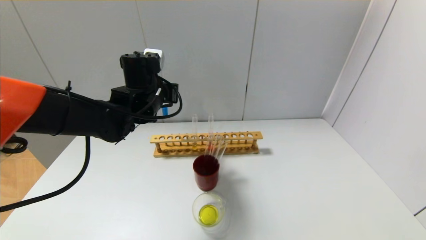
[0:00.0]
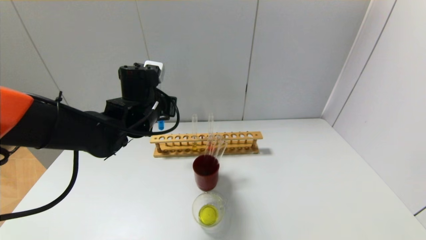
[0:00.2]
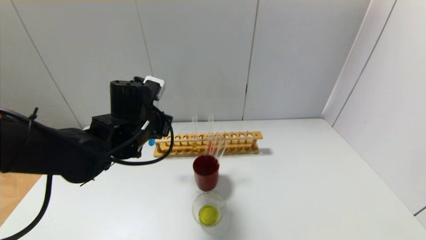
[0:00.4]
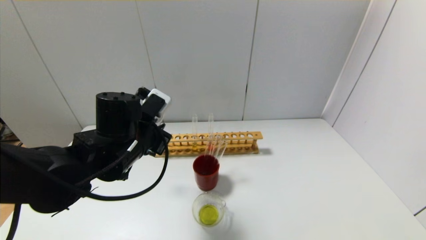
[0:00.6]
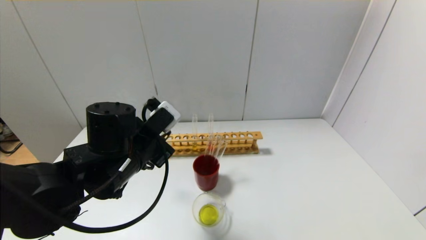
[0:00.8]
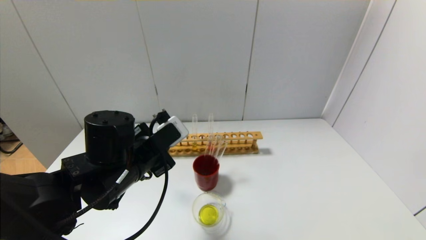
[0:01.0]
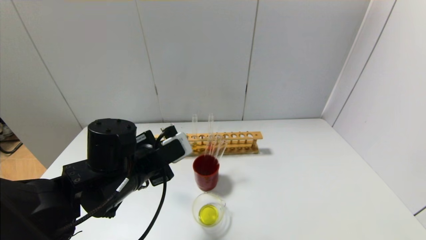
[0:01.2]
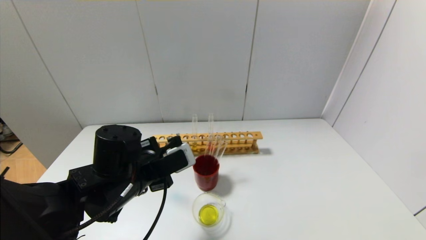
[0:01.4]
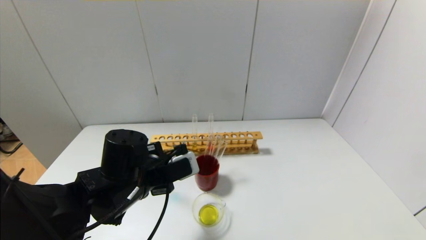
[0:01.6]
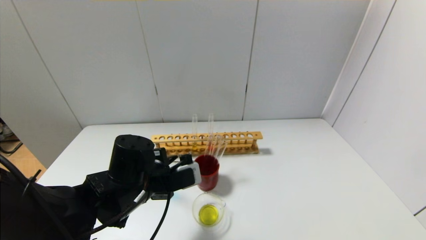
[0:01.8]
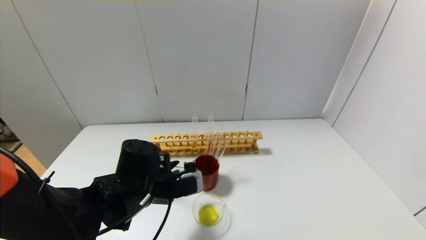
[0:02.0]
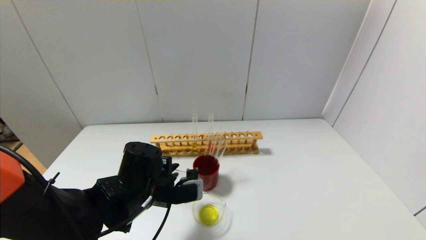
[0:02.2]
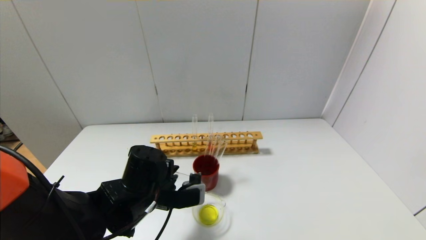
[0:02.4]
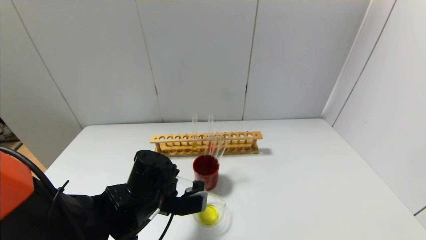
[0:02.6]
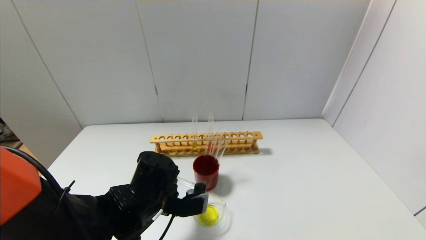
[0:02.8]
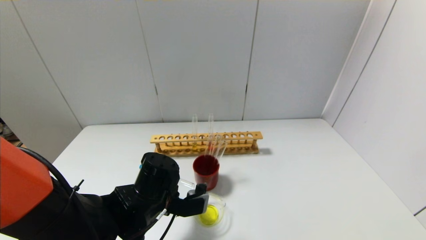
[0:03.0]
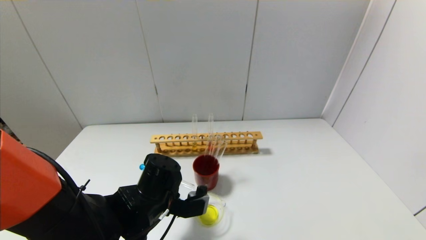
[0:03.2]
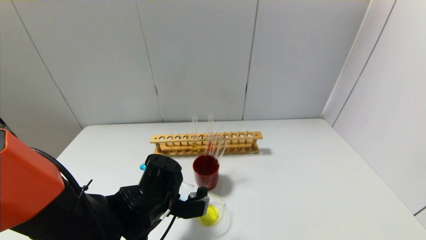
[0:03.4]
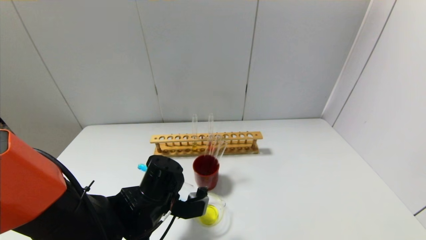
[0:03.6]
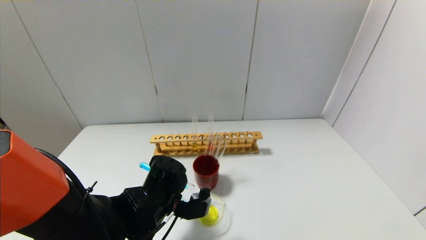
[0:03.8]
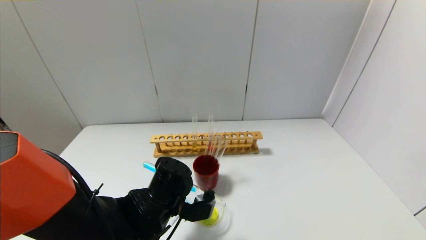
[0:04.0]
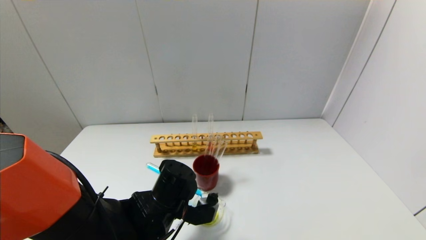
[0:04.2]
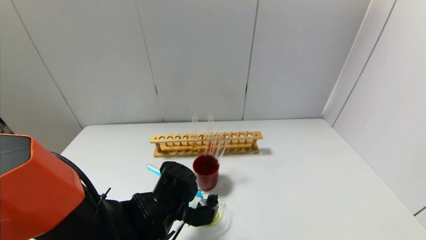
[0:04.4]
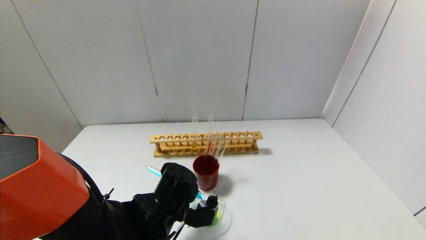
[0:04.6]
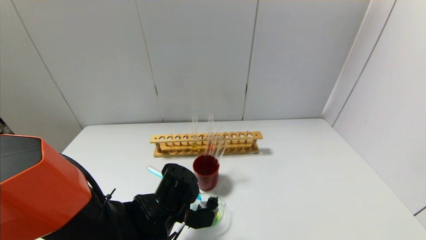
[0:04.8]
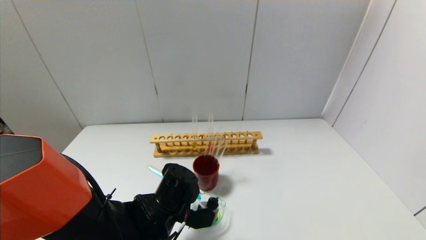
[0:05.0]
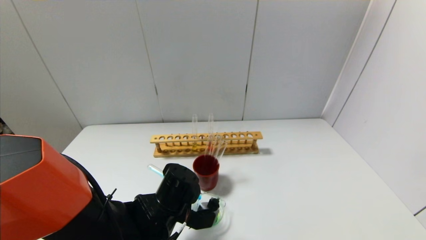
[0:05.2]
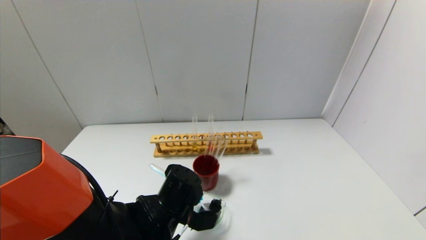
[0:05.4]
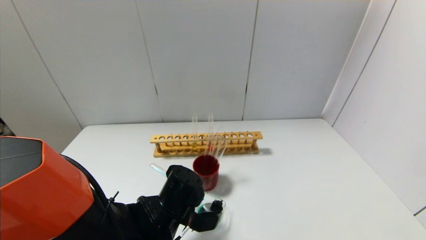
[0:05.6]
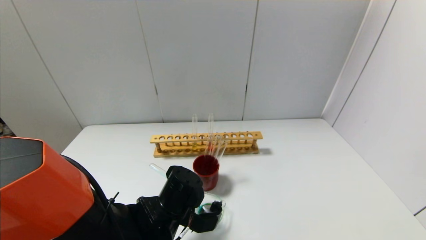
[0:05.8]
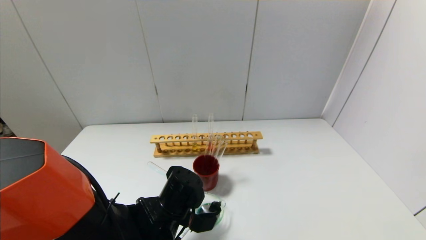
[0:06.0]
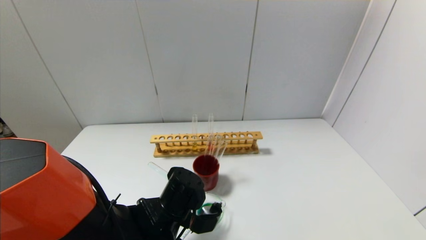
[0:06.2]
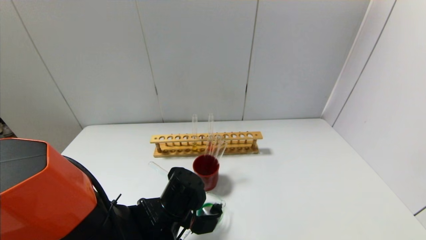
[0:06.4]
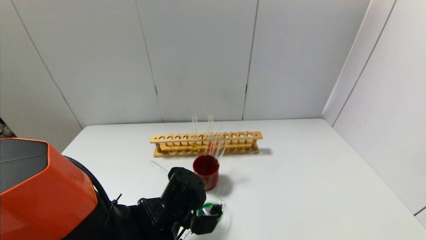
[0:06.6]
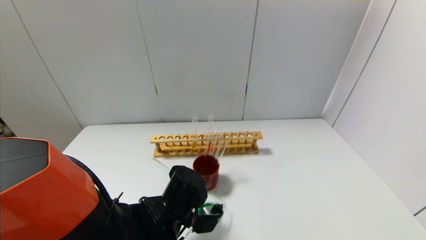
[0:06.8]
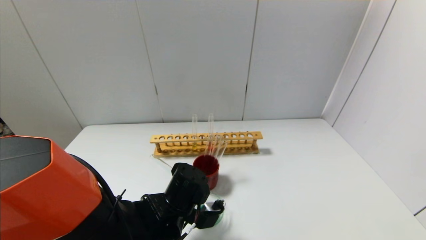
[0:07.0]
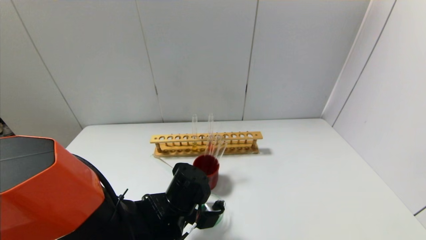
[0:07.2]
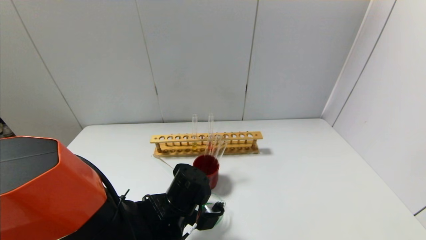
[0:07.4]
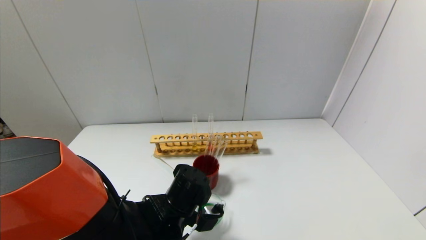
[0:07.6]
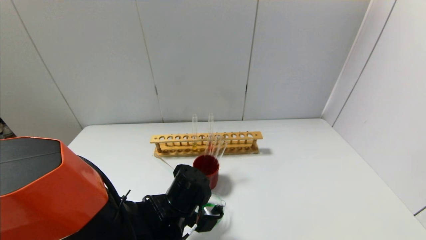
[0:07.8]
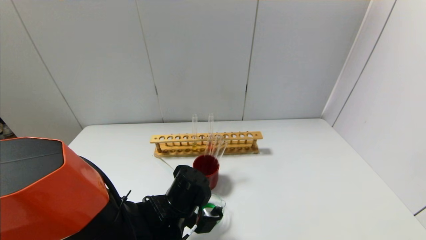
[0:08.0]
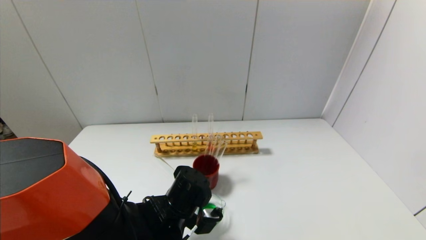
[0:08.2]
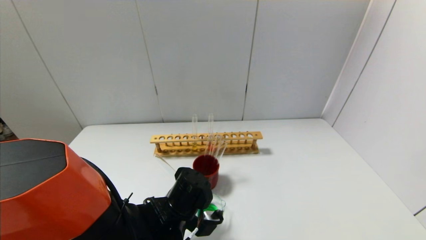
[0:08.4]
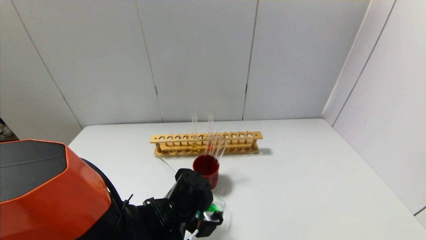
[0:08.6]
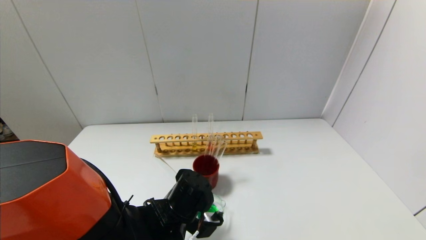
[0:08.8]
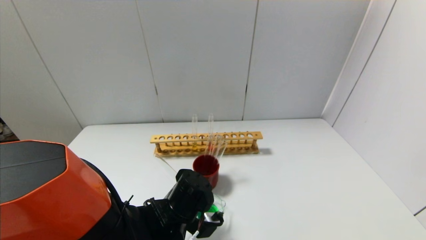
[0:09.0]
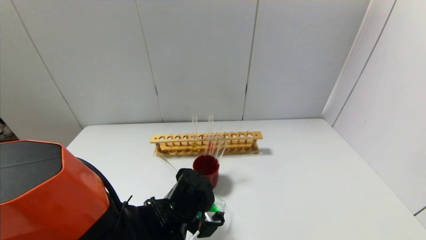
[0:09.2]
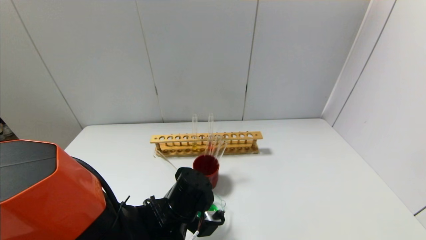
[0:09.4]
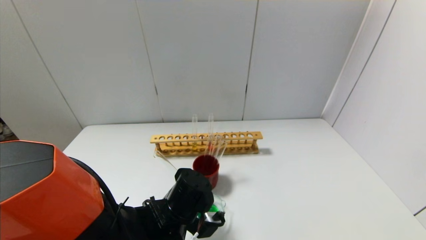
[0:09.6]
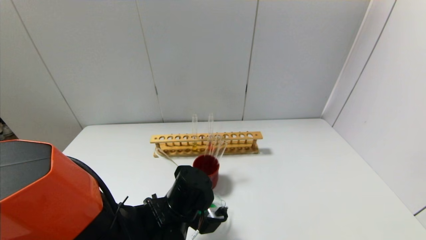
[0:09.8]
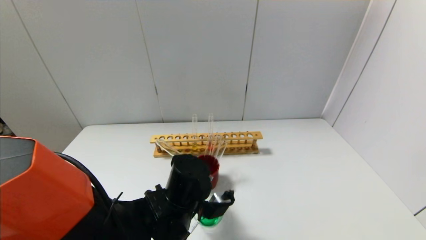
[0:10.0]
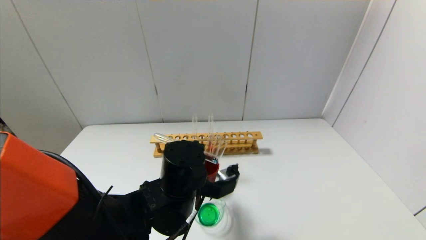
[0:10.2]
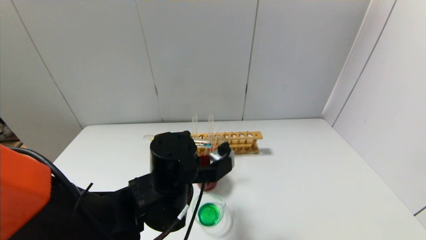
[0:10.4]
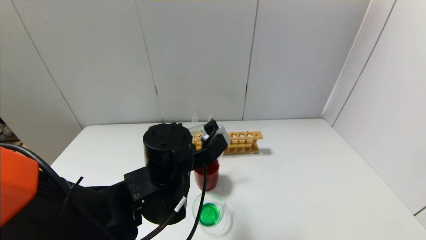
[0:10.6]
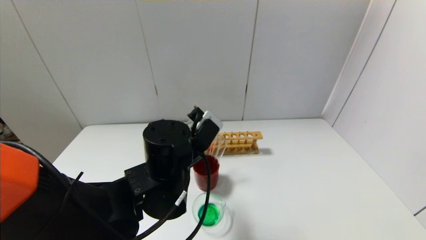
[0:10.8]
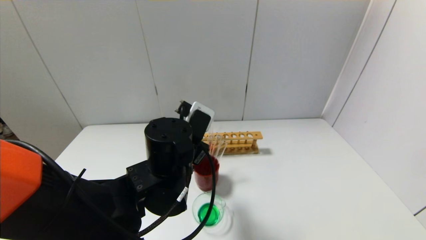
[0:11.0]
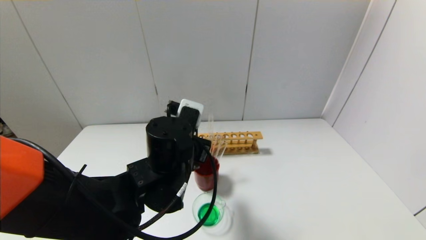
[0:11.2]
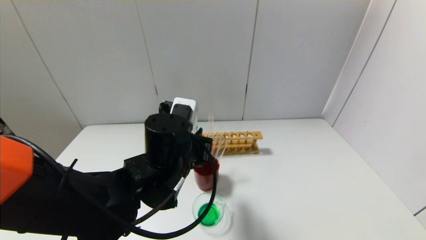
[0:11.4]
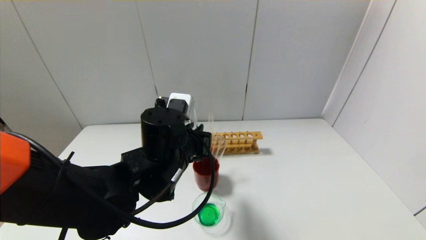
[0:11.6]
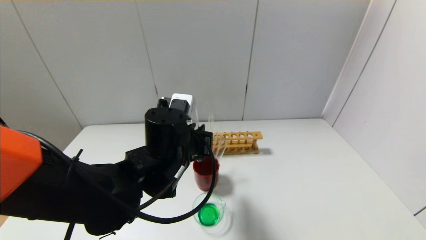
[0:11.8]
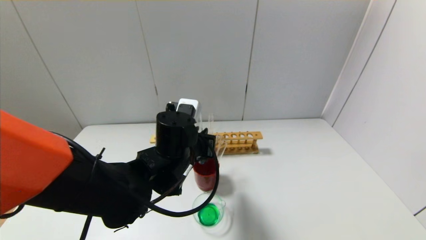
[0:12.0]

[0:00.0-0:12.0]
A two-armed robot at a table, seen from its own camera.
Step, 0:00.0 to 0:09.8: Pour the blue reagent into the graduated cylinder with the left gripper.
0:00.0 to 0:01.6: The left gripper heads backward and downward, covering about 15 cm.
0:01.6 to 0:03.0: The left gripper changes place by about 5 cm.
0:03.0 to 0:06.0: The grippers stay close to where they were, moving slightly.
0:06.0 to 0:09.0: The grippers stay close to where they were, moving slightly.
0:09.0 to 0:10.4: The left gripper heads upward, covering about 10 cm.

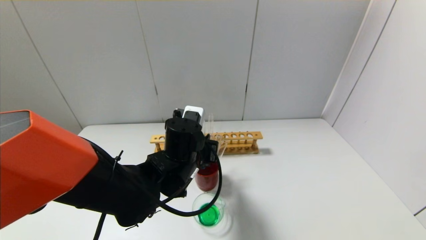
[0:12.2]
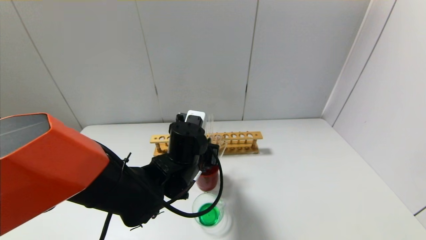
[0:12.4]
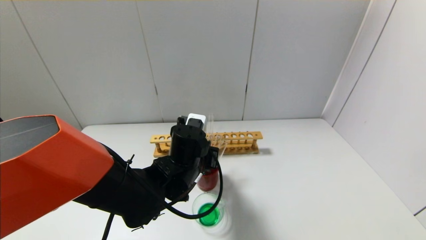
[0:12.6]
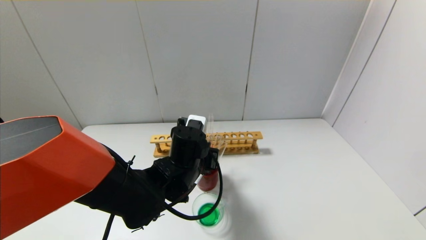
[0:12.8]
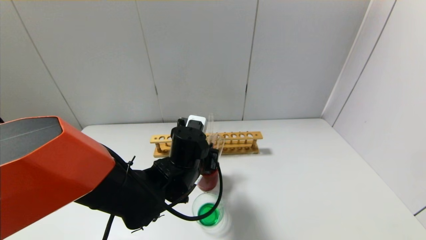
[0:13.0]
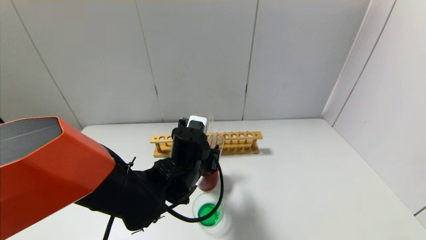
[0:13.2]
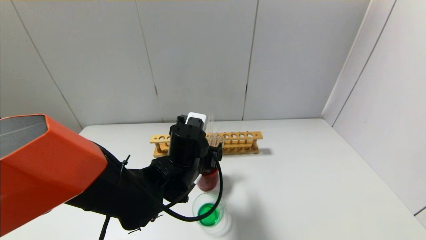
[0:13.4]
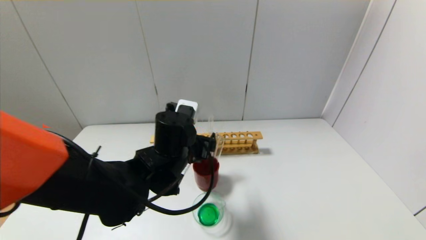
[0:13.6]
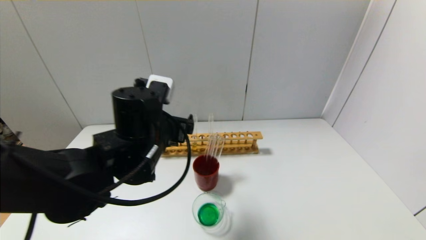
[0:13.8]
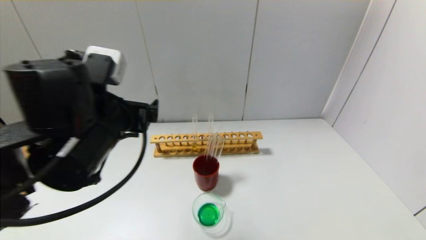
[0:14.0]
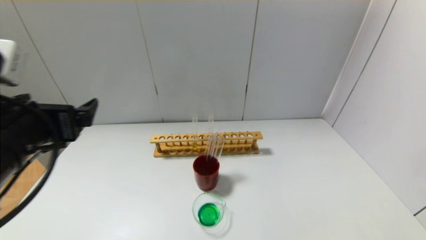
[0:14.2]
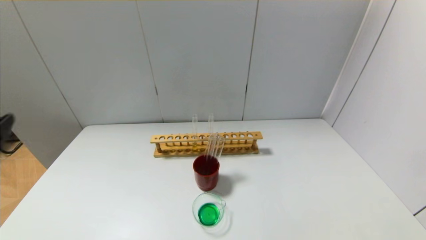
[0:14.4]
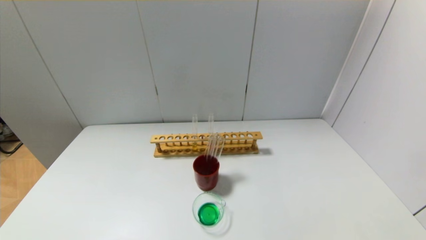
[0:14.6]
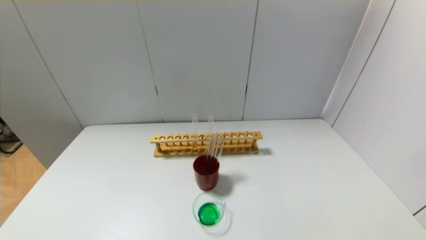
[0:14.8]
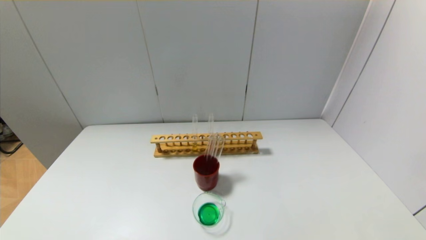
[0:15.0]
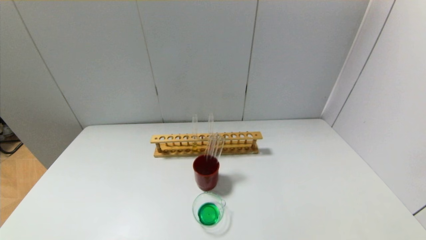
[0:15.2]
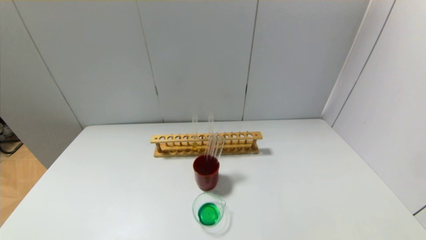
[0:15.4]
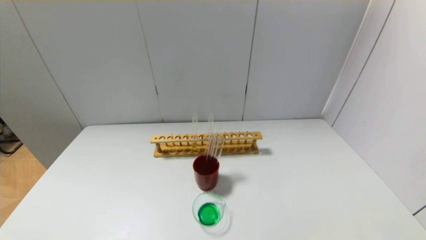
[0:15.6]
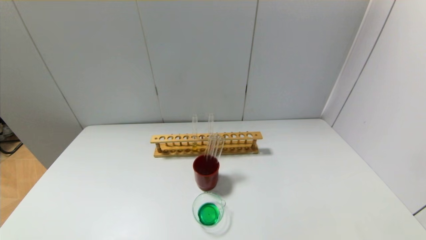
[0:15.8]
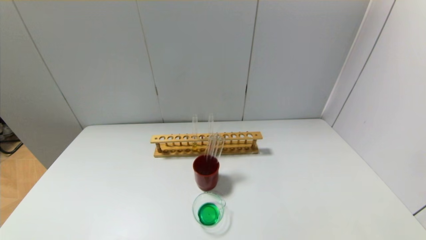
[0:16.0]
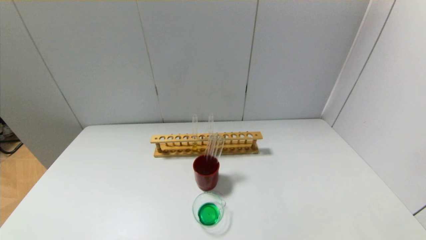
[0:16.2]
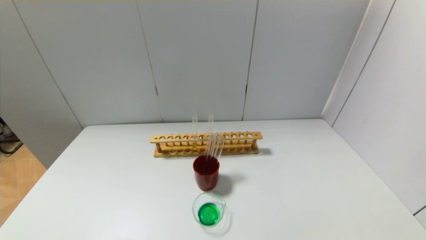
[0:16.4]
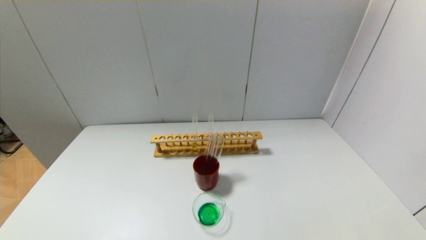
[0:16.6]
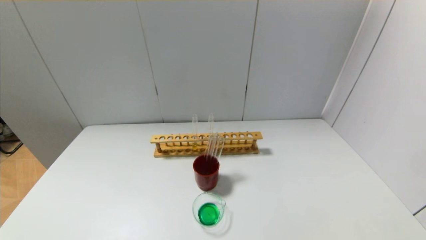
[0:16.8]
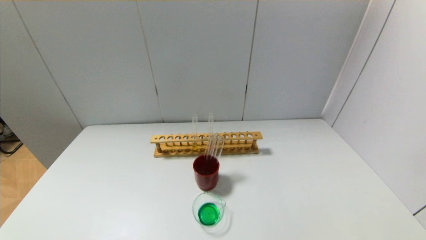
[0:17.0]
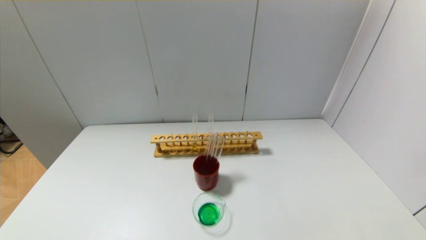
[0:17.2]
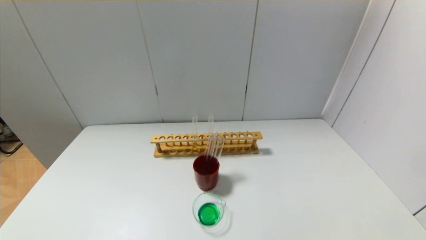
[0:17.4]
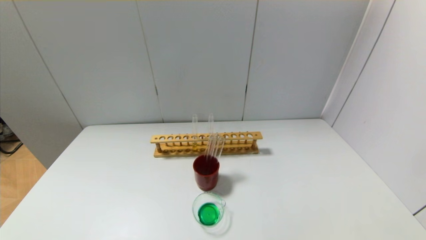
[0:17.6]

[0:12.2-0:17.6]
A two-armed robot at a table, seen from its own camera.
0:12.2 to 0:13.6: The left gripper opens.
0:13.6 to 0:15.0: The left gripper is displaced backward and to the left by roughly 40 cm.
0:16.2 to 0:17.6: The two grippers keep their place.
